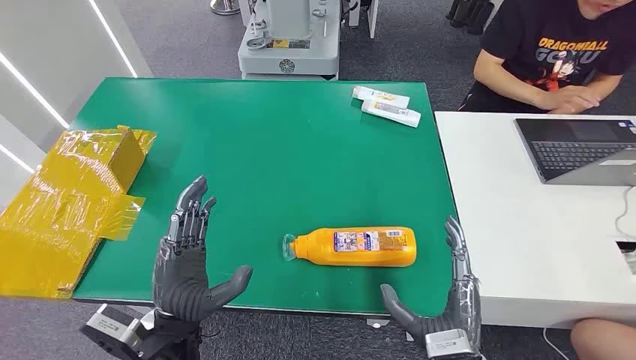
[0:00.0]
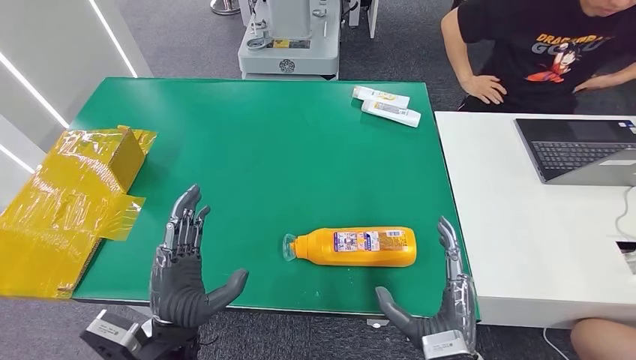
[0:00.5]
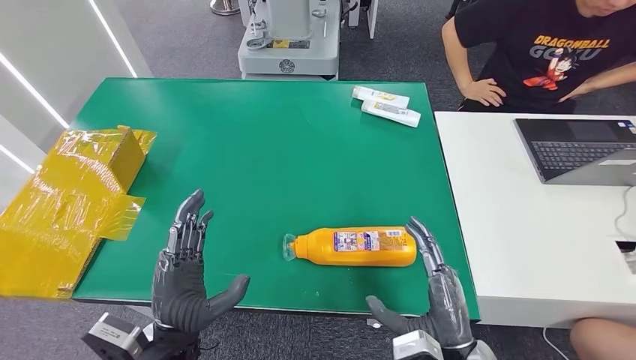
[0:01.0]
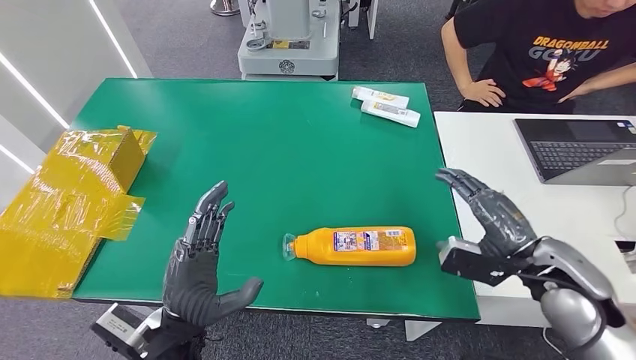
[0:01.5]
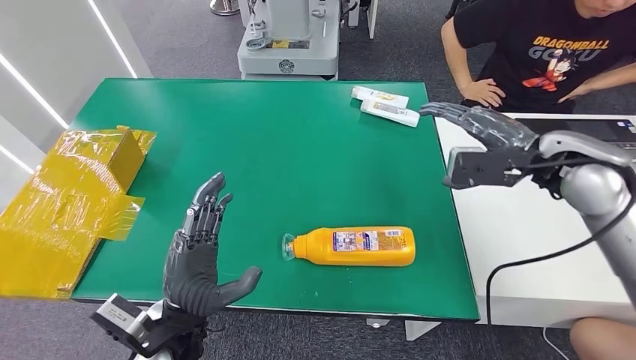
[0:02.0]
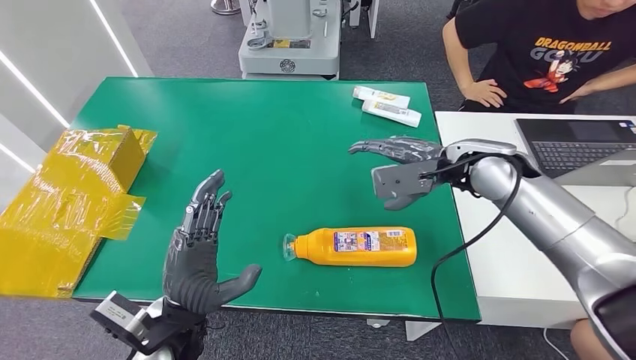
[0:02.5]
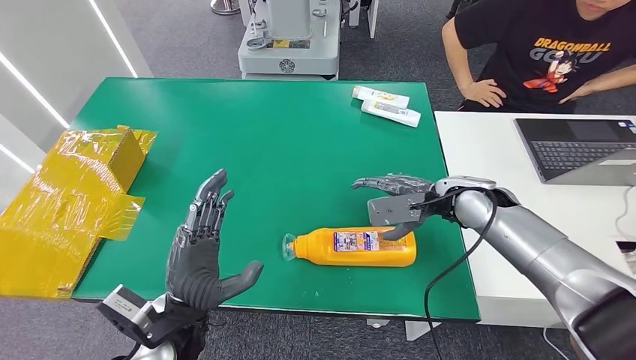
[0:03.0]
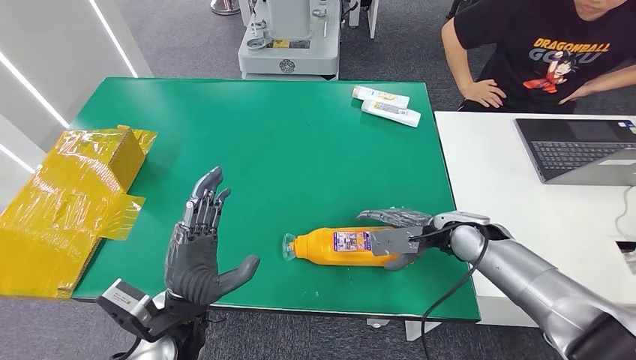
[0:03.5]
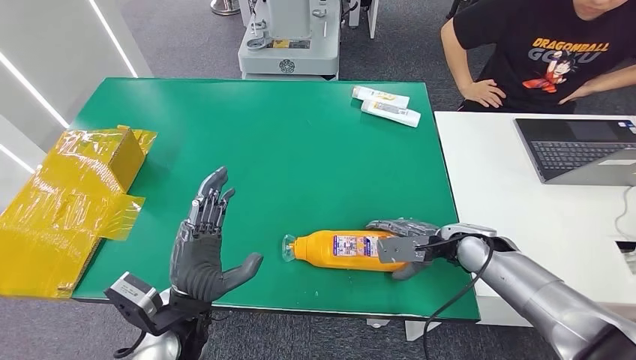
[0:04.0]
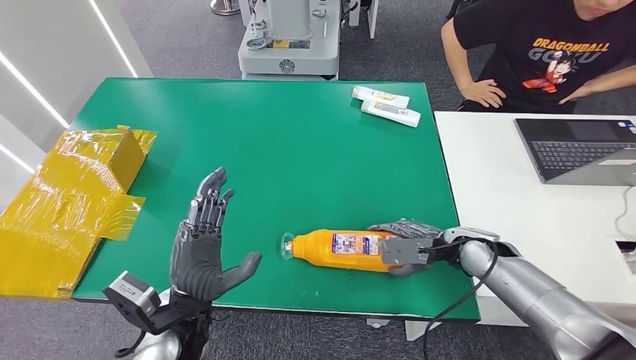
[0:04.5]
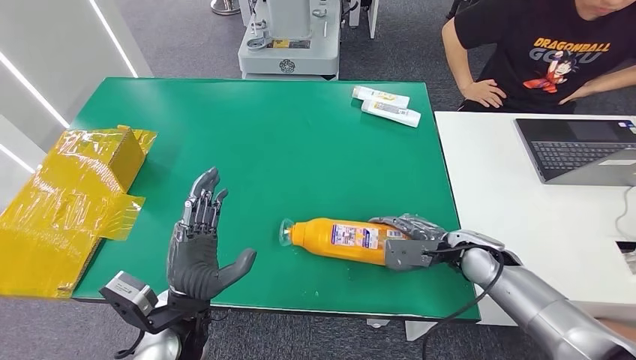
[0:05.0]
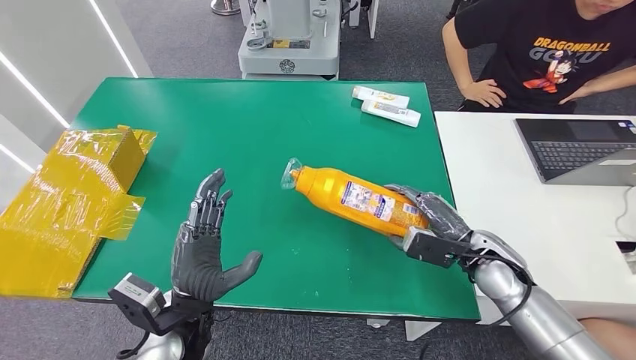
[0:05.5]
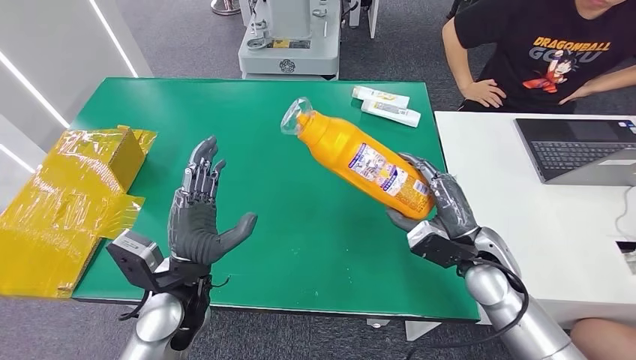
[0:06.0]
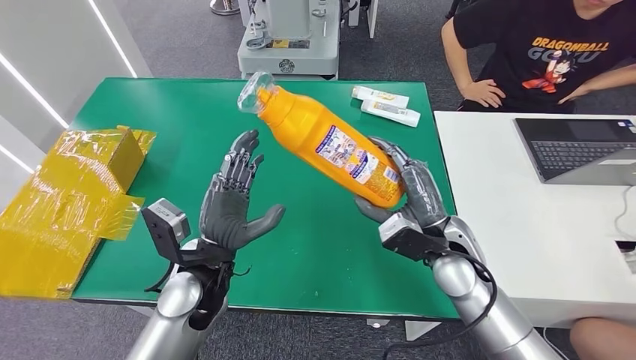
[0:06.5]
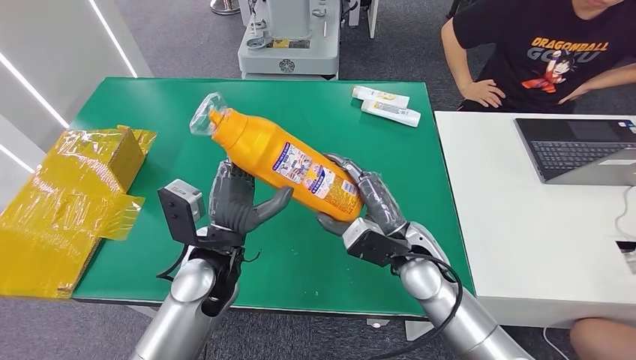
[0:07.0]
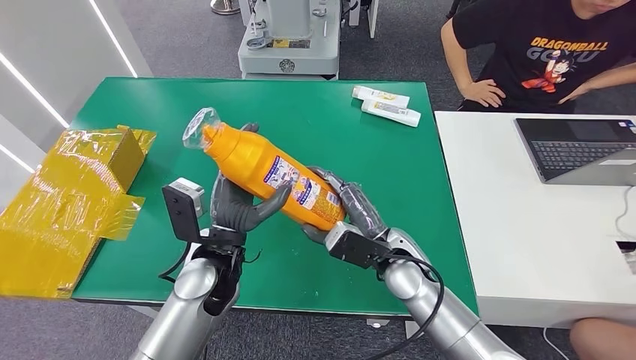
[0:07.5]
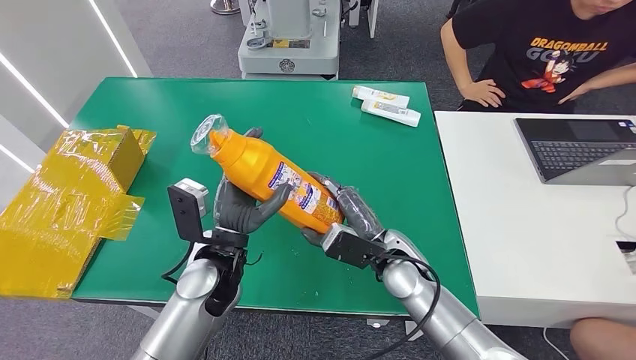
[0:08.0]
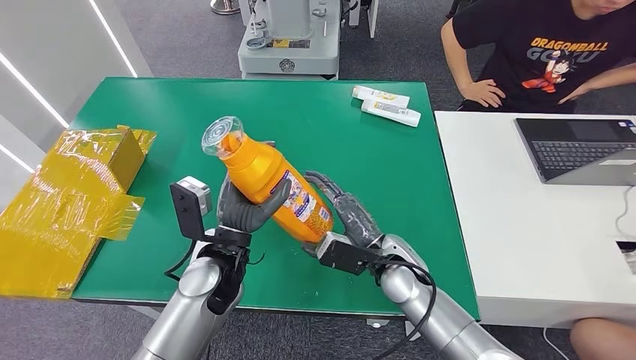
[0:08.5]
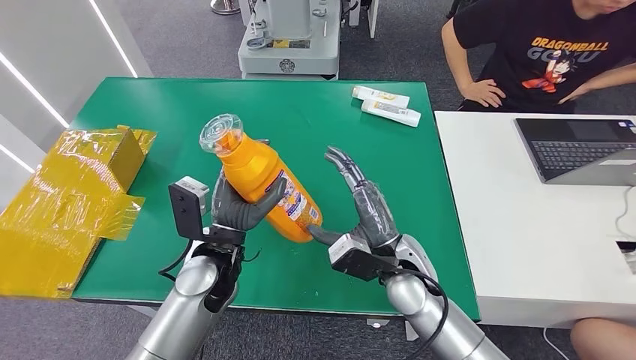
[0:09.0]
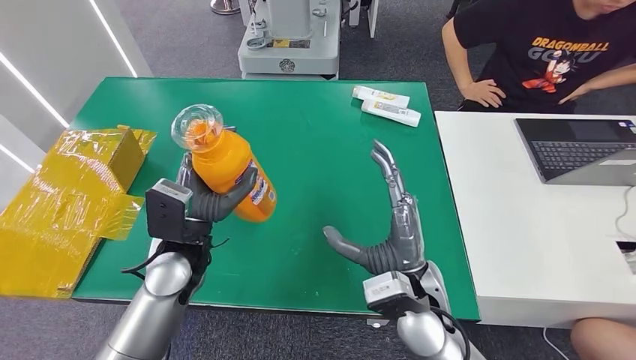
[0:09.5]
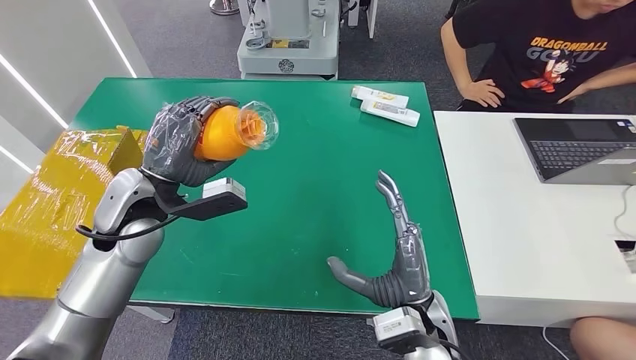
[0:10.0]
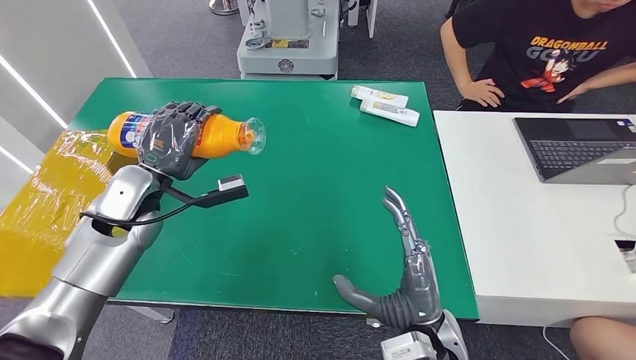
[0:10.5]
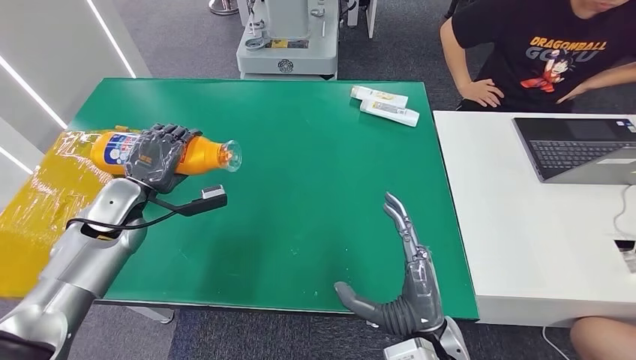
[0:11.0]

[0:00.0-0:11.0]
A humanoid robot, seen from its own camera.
Step, 0:00.0 to 0:05.5: Pick up the bottle from the table.
0:02.0 to 0:03.5: The right hand moves downward, approximately 20 cm.
0:03.5 to 0:05.5: The right hand goes some 5 cm backward.
0:07.5 to 0:09.0: The hands stay close to where they were, moving slightly.

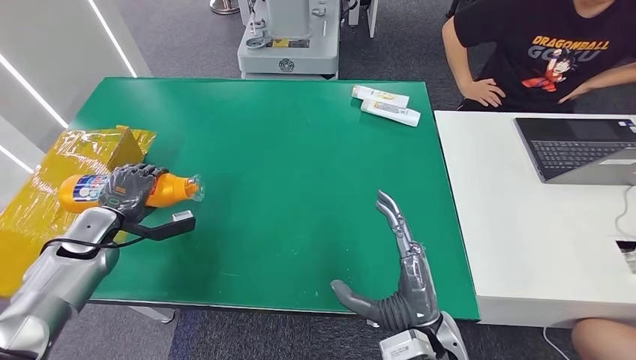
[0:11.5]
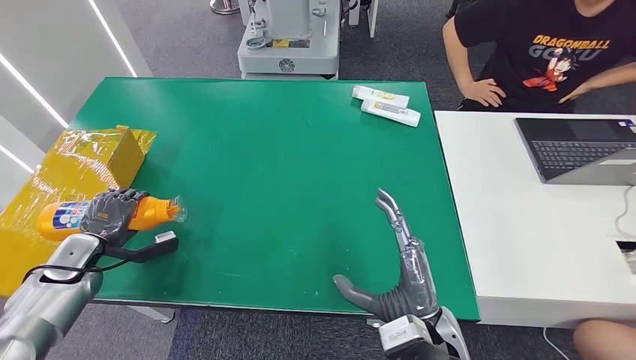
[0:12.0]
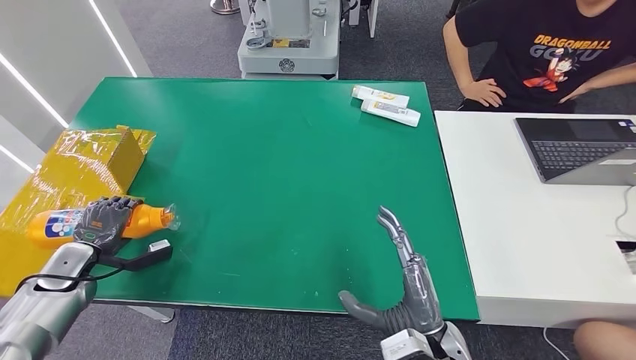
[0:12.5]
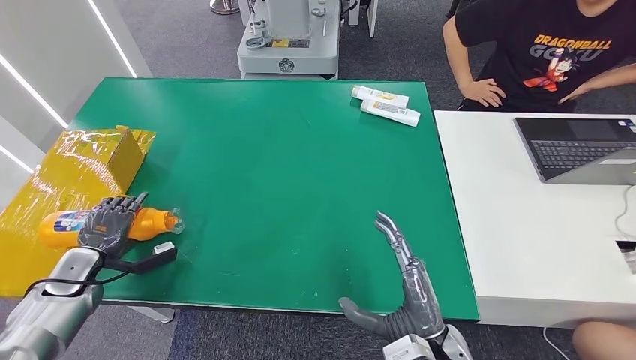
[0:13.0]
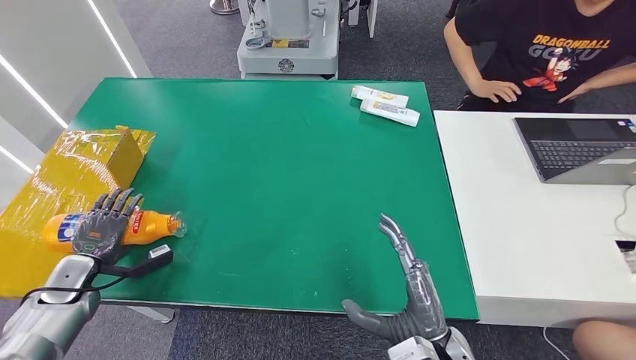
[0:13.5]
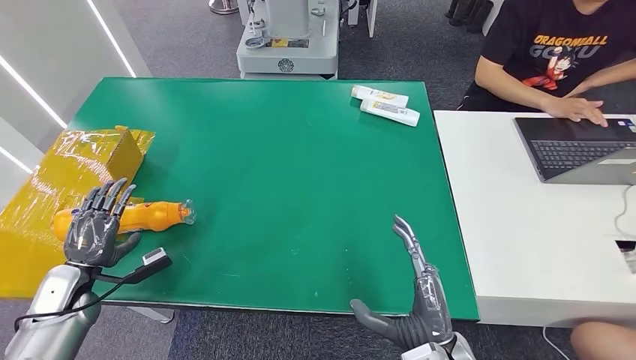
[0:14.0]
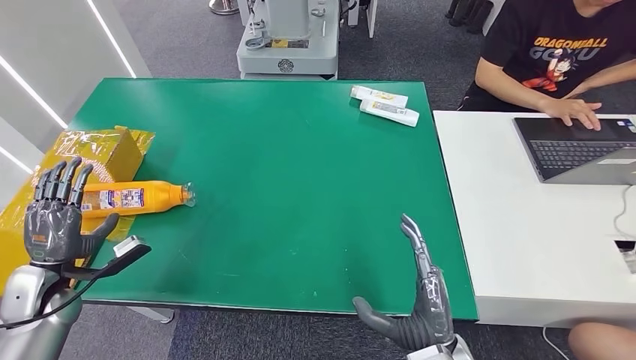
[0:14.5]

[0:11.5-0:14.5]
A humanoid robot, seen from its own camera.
Step, 0:11.5 to 0:14.5: Turn the bottle to the front side.
0:11.5 to 0:13.0: The left hand goes roughly 10 cm backward and downward.
0:13.0 to 0:14.5: The left hand shifts by approximately 5 cm.

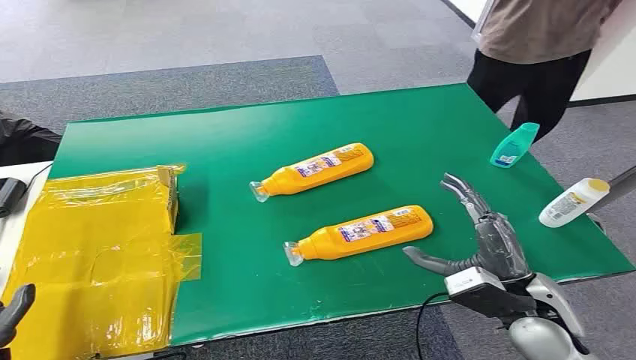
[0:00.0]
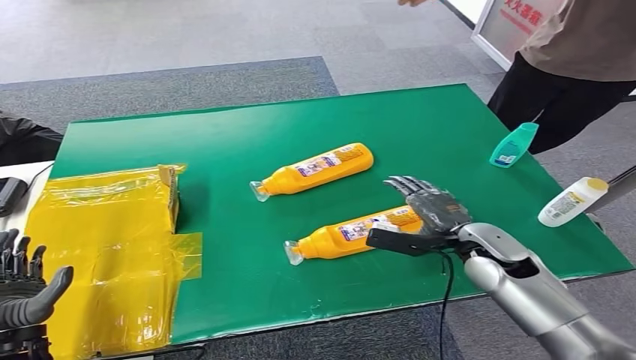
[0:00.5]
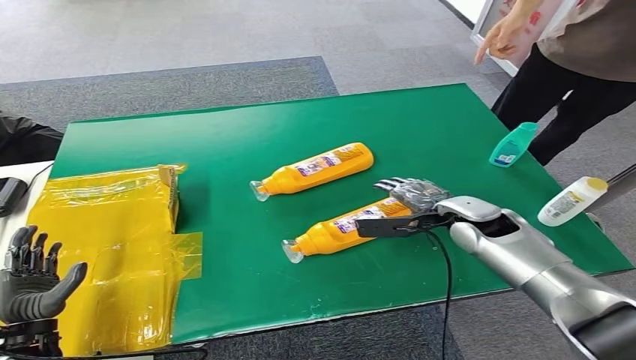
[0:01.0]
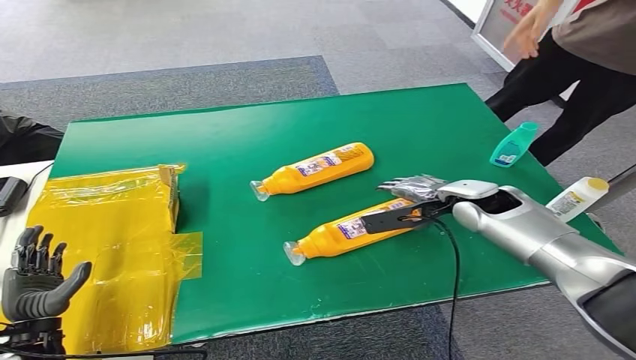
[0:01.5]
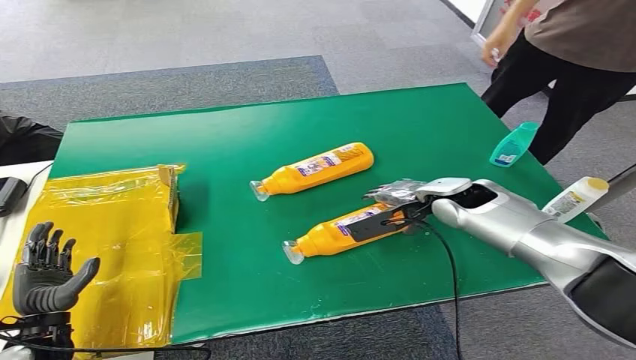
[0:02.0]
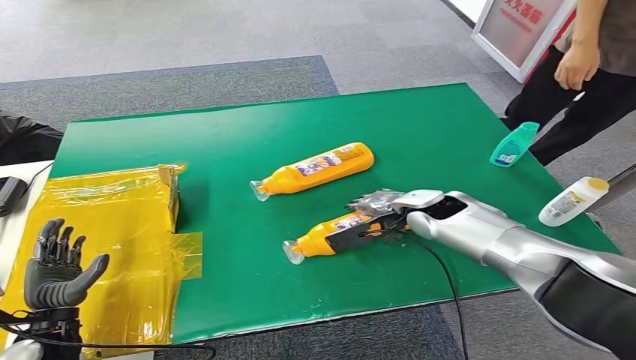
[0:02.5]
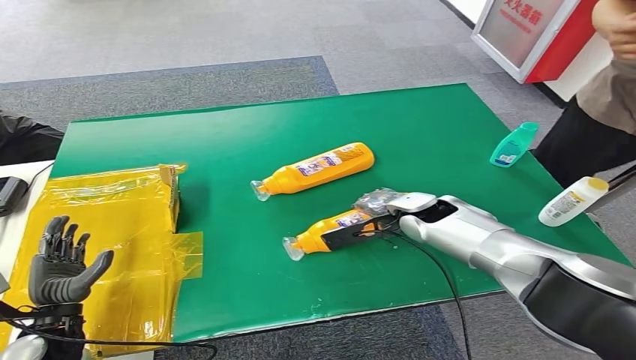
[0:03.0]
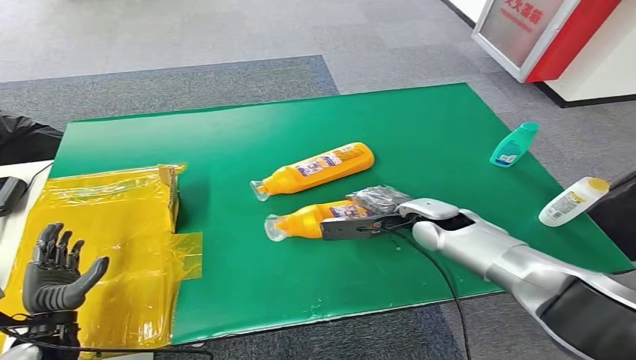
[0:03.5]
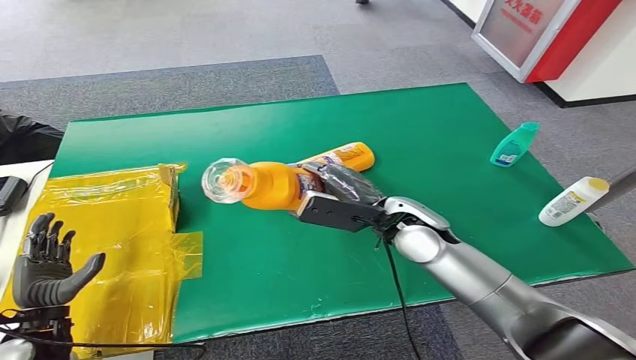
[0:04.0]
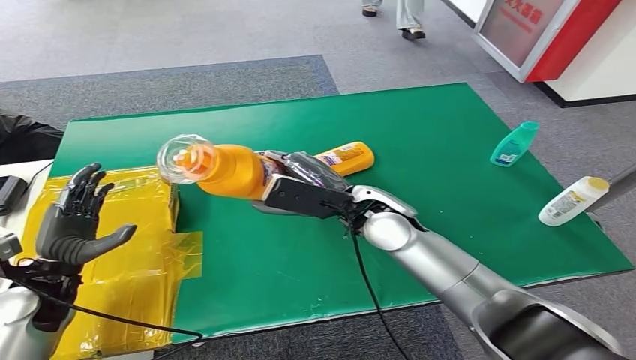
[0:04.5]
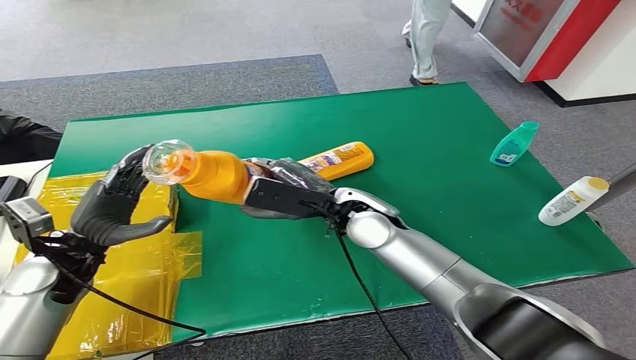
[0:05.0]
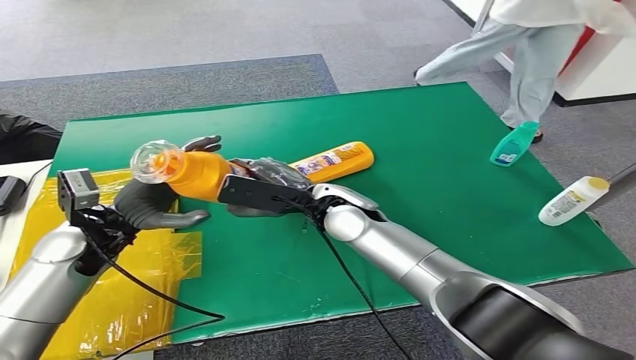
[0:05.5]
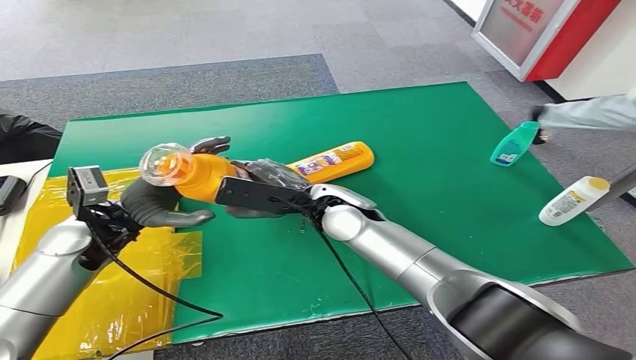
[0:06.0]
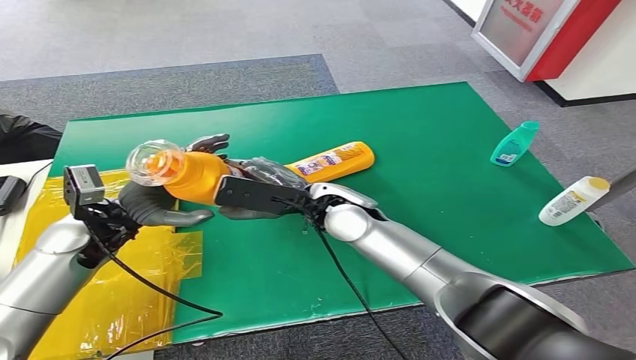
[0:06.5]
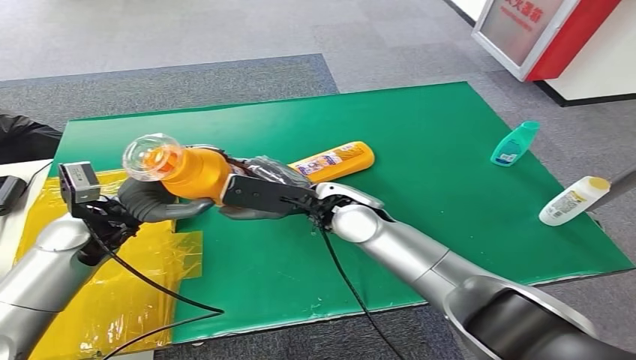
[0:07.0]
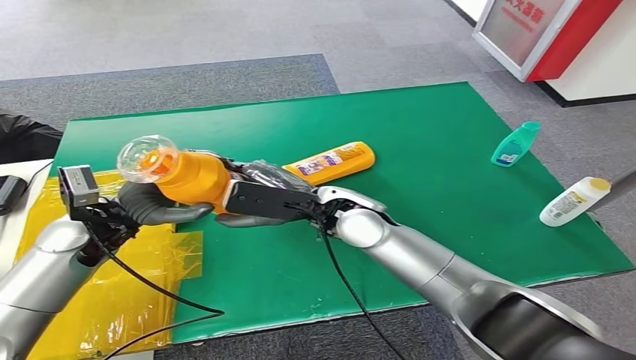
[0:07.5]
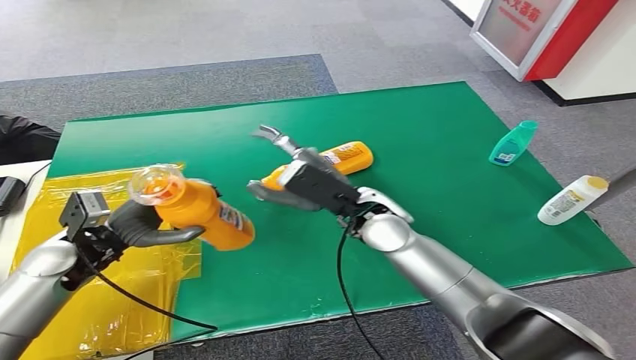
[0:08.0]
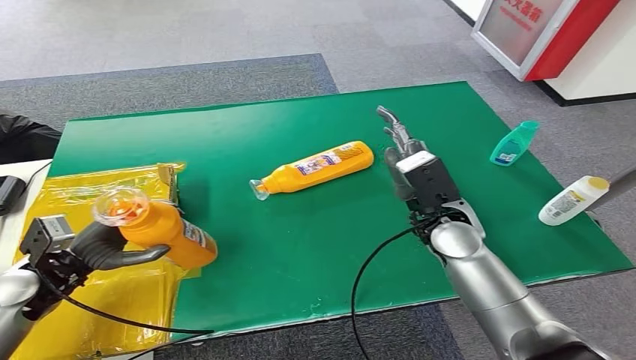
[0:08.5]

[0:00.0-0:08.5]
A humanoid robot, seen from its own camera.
Step, 0:00.0 to 0:04.5: Pick up the bottle from the table.
